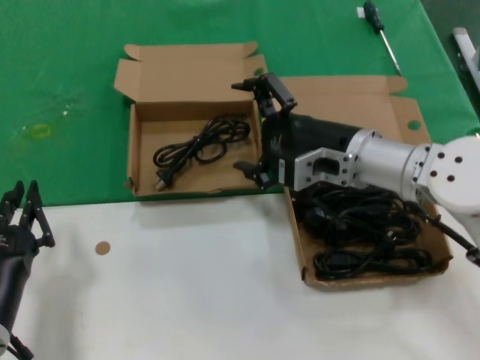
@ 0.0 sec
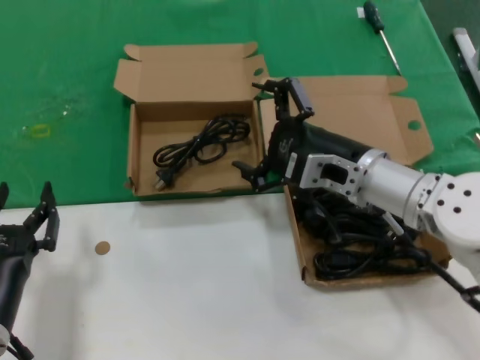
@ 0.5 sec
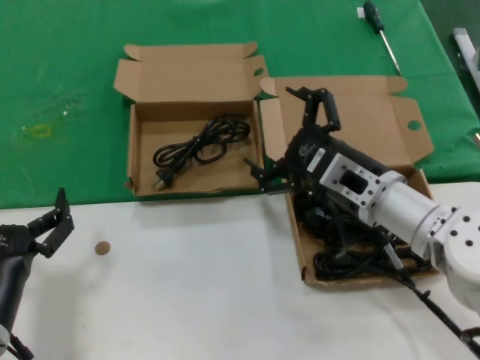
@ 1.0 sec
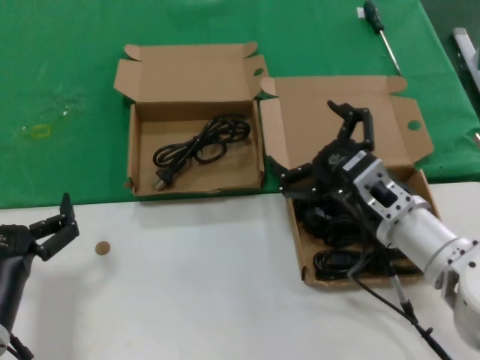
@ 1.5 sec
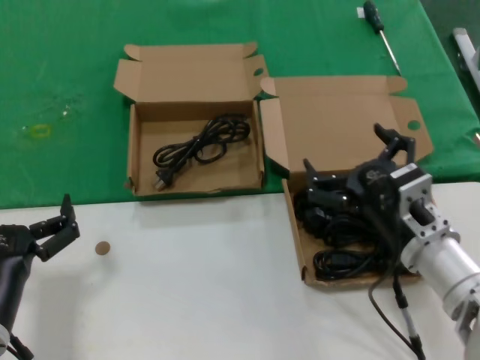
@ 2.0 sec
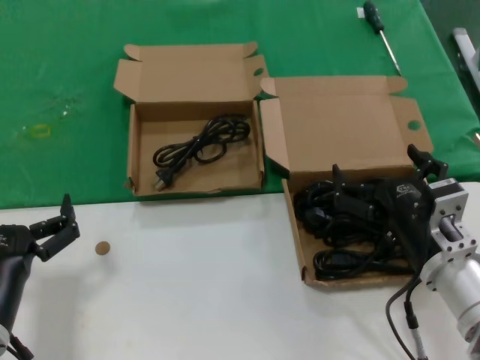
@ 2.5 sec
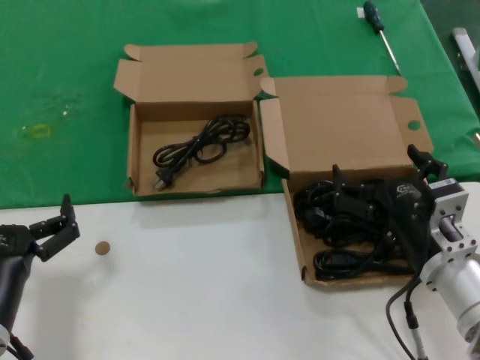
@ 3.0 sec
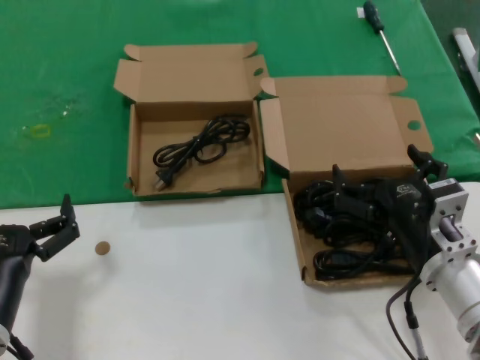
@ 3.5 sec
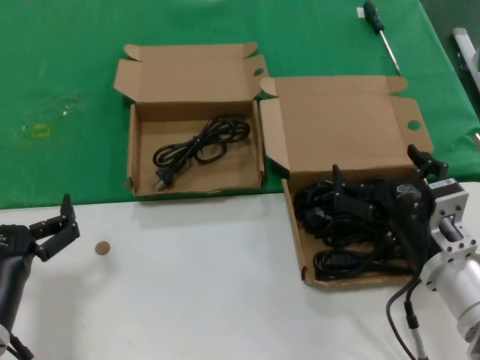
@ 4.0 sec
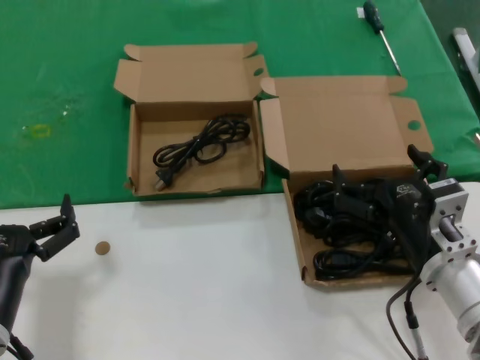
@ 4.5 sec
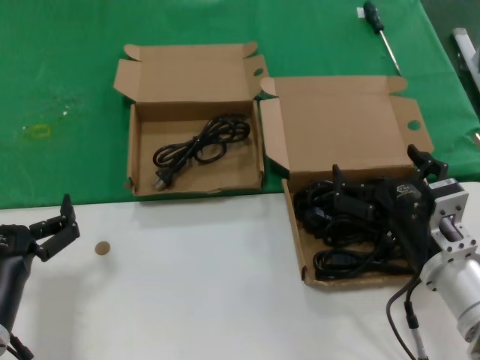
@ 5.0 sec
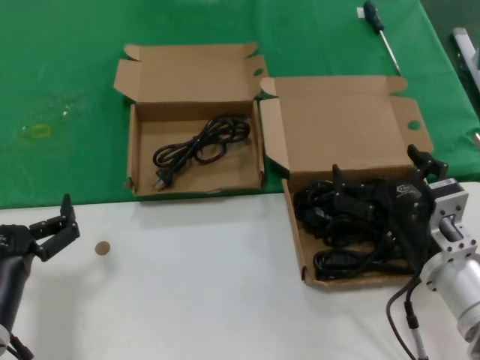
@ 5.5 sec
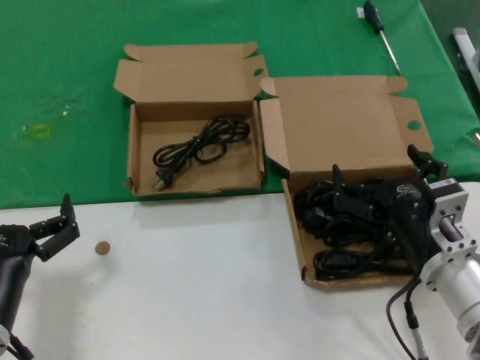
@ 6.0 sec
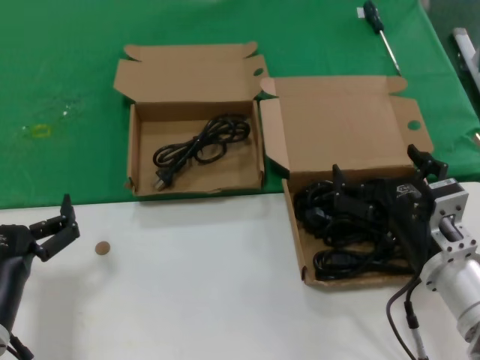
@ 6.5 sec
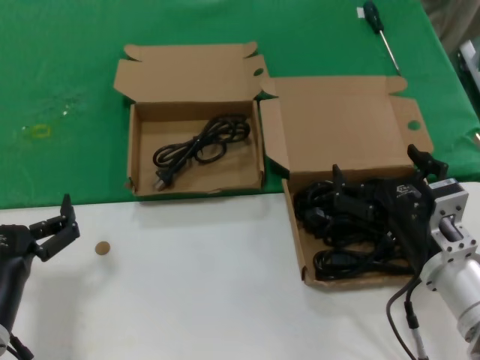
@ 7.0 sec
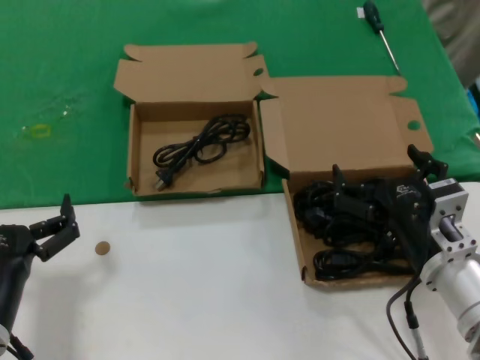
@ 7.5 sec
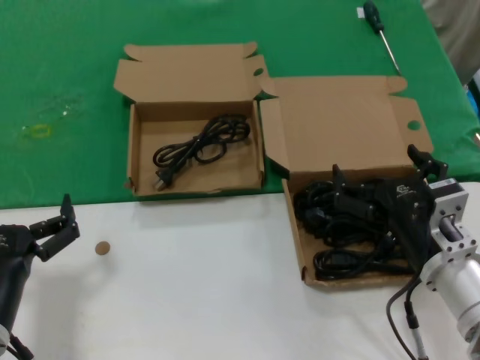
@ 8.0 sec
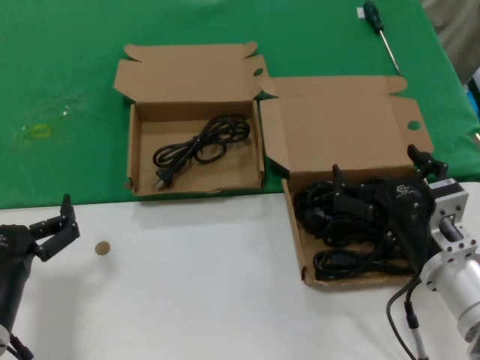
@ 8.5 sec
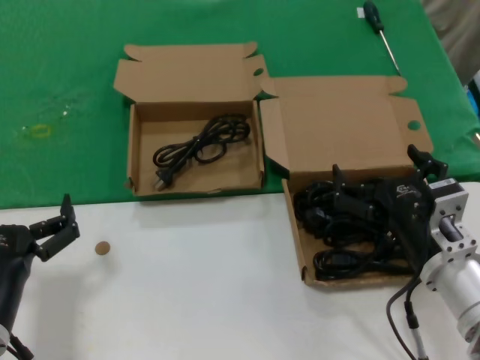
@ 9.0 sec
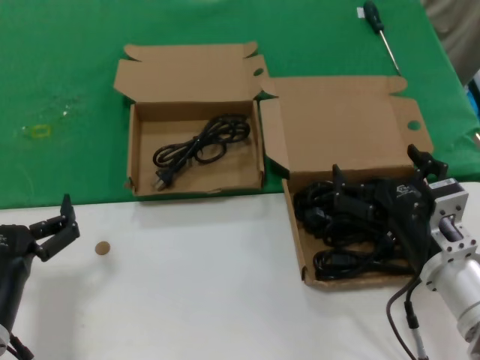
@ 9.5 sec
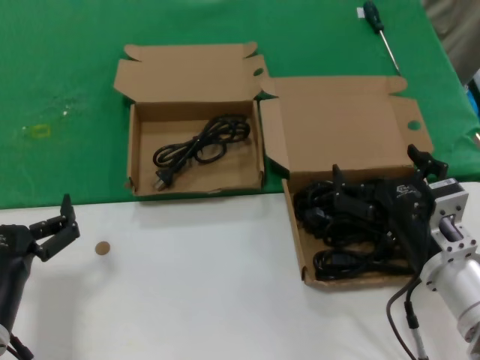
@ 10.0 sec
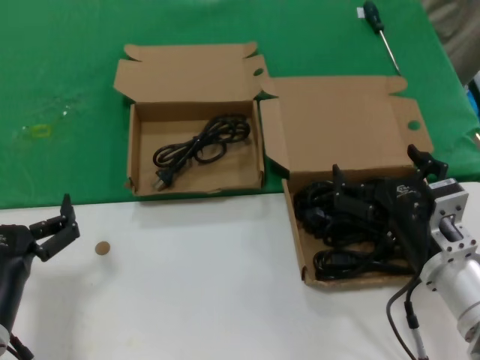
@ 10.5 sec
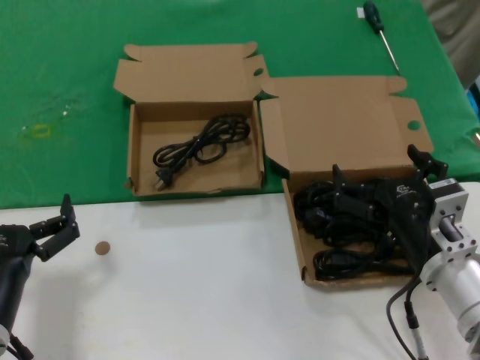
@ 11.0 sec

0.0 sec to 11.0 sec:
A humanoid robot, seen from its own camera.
Task of the whole recording: take the parts from the box containing them and put them into an empty box.
0.0 sec to 2.0 sec: The right hand travels backward and downward by roughly 15 cm.
2.0 sec to 3.5 sec: The hands make only small movements.
3.5 sec to 11.0 sec: Both hands stay put.

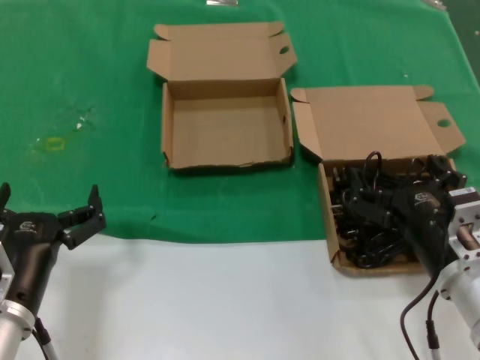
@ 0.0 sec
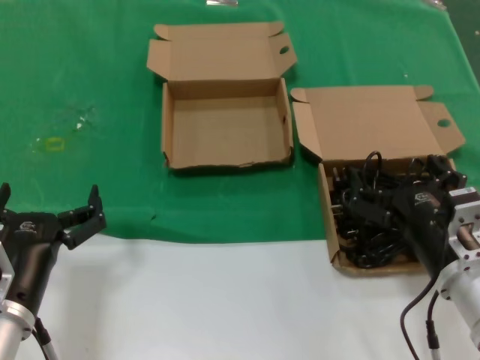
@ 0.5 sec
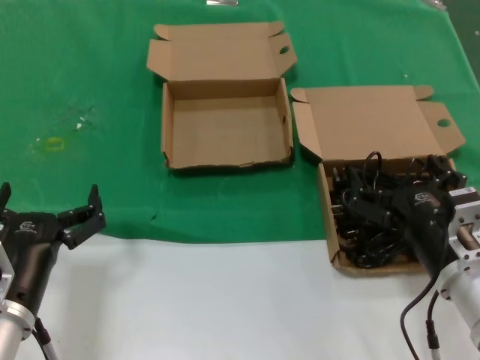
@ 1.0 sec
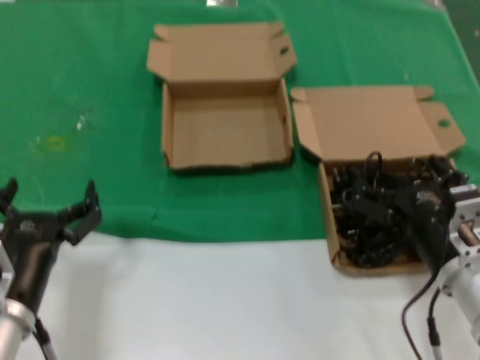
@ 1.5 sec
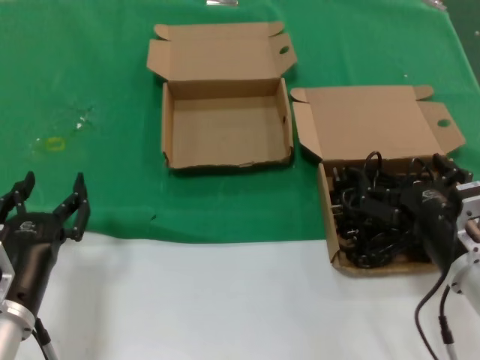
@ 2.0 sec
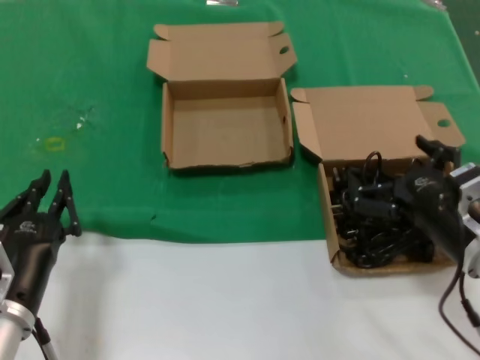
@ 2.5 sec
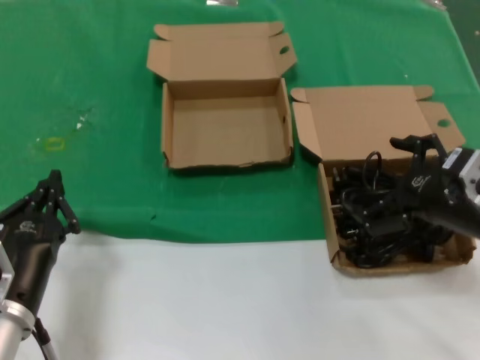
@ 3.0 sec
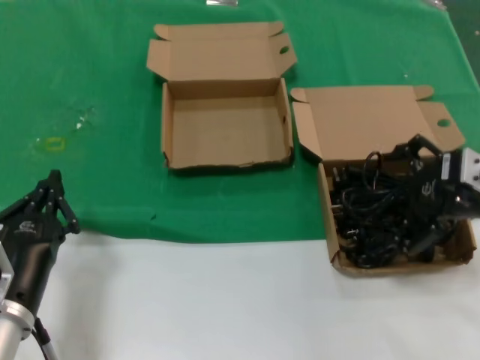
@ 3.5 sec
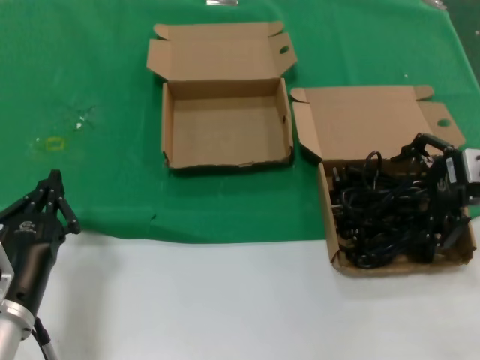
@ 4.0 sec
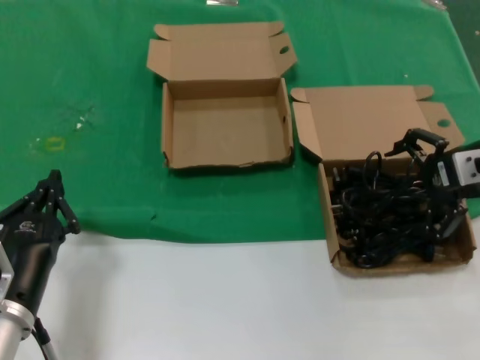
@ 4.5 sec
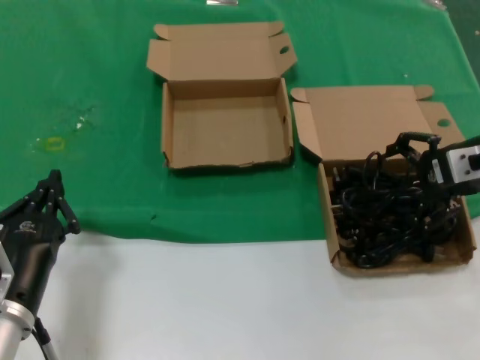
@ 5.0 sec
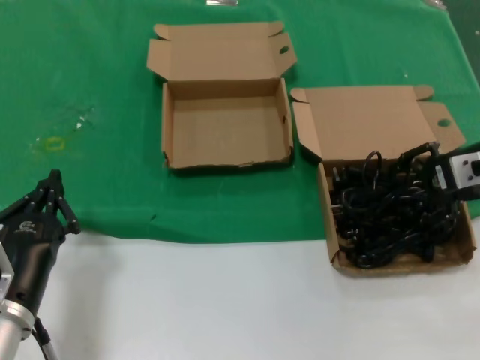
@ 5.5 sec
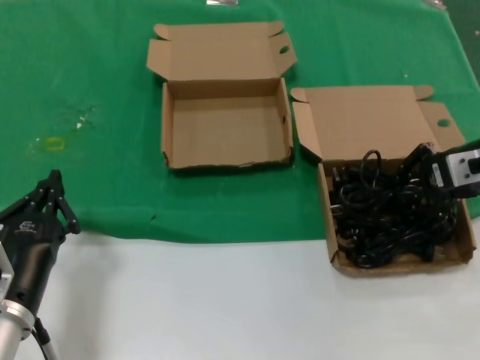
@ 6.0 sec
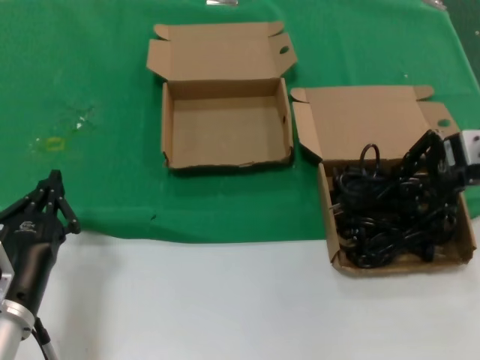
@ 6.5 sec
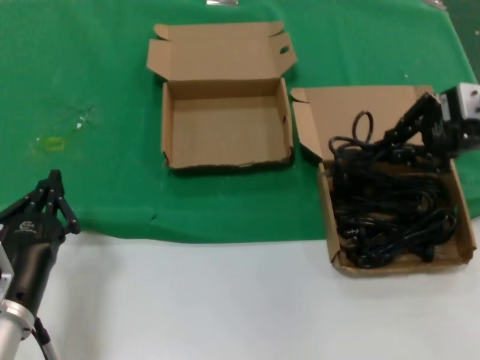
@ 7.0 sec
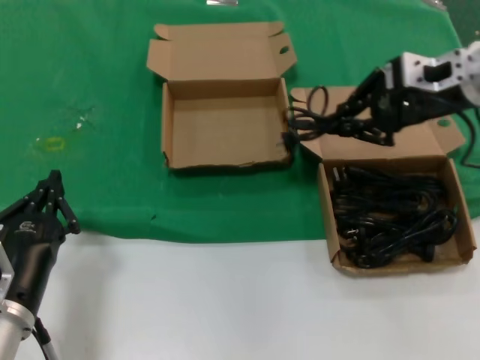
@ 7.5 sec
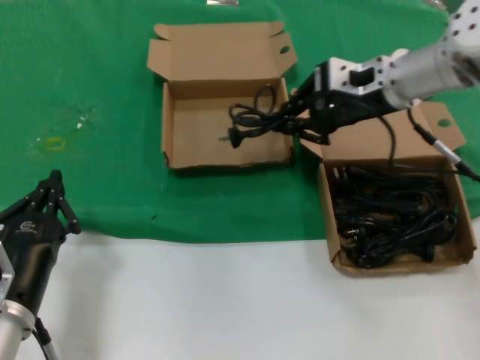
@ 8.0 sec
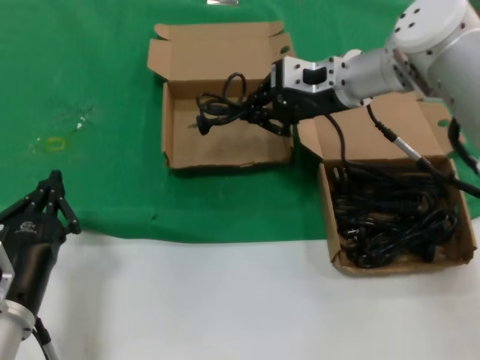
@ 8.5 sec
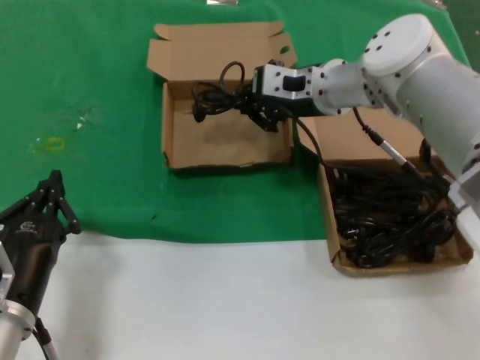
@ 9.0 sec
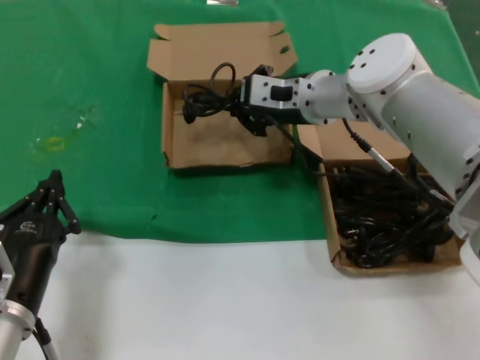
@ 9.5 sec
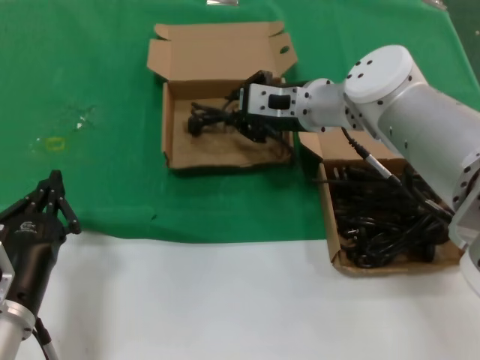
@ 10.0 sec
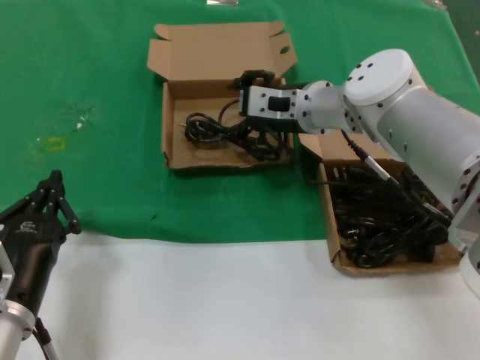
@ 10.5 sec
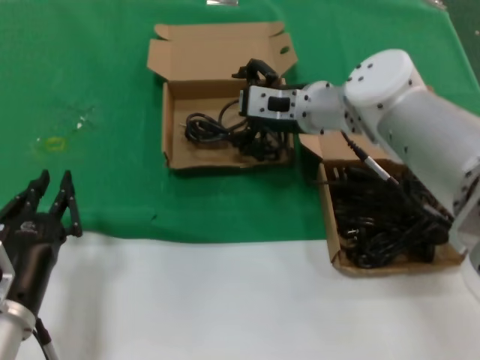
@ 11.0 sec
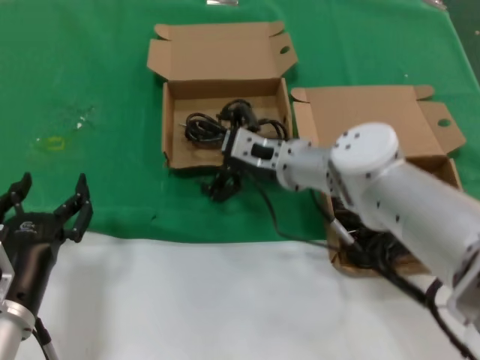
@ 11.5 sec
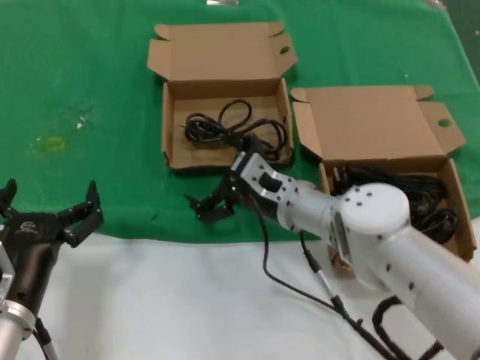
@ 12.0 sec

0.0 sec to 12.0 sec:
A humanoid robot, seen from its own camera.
Task of the whole recording: take the parts from the box containing them and put them into an empty box.
Step, 0.0 sec to 5.5 sec: Grasp the data cable.
Step, 6.0 sec to 10.0 sec: Place the data cable in the another box.
0.0 sec to 2.0 sec: The hands move only a little.
2.0 sec to 4.0 sec: The right hand moves upward, forward and to the right, about 20 cm.
4.0 sec to 6.0 sec: The hands stay close to where they were, moving slightly.
6.0 sec to 8.0 sec: The right hand heads to the left, forward and upward, covering approximately 15 cm.
8.0 sec to 10.0 sec: The right hand heads to the left and downward, covering roughly 15 cm.
10.0 sec to 12.0 sec: The right hand heads downward and backward, covering about 15 cm.

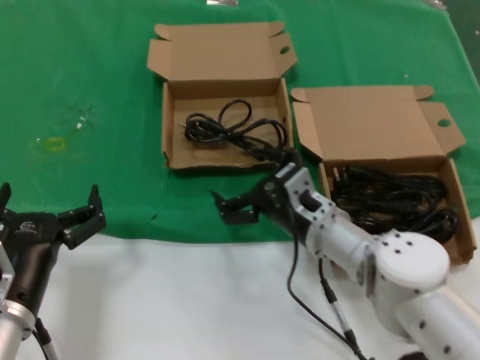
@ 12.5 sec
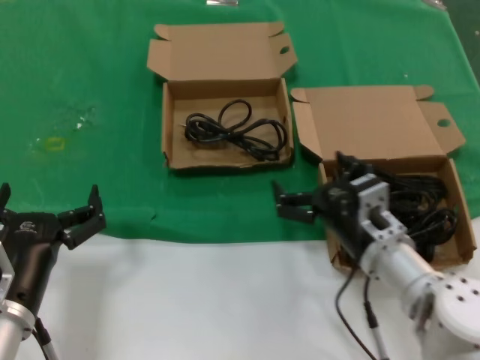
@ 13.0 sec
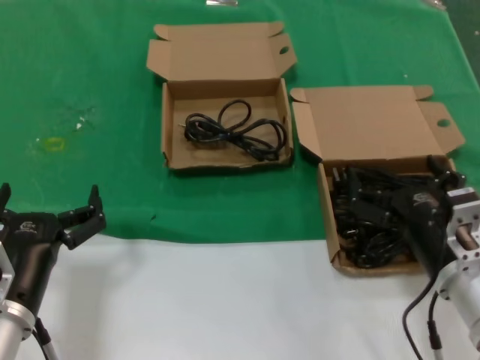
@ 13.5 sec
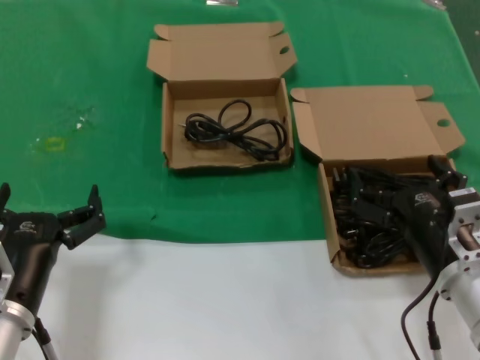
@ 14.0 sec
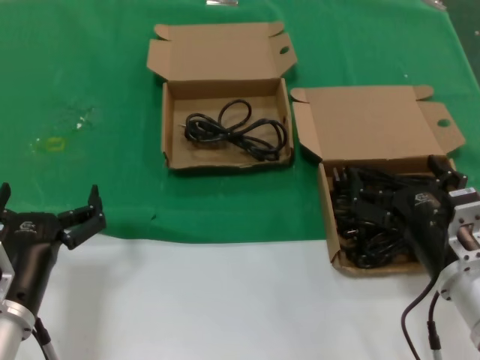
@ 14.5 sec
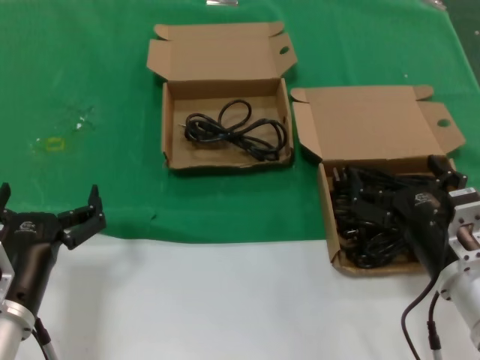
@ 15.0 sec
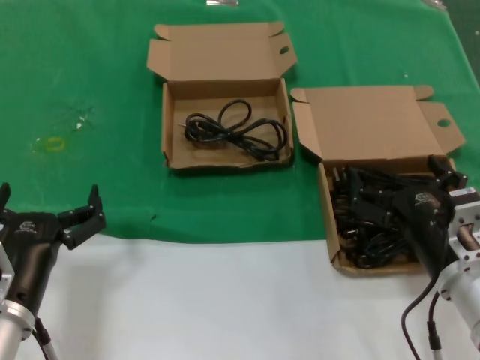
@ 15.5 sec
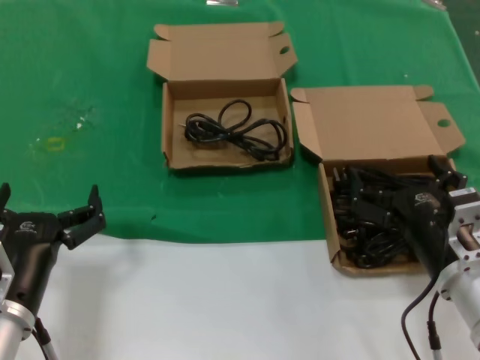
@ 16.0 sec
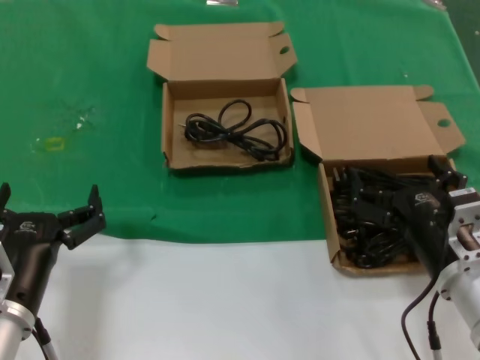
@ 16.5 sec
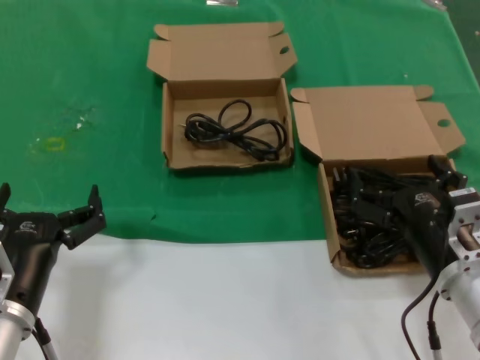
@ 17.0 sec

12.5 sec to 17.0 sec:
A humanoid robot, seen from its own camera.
Task of the whole recording: take the parts from the box containing them and put them into an empty box.
12.5 sec to 14.5 sec: The right hand moves to the right and backward, roughly 15 cm.
14.5 sec to 17.0 sec: Neither hand changes place.
